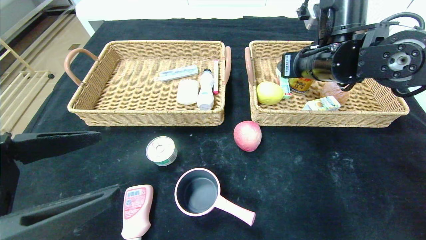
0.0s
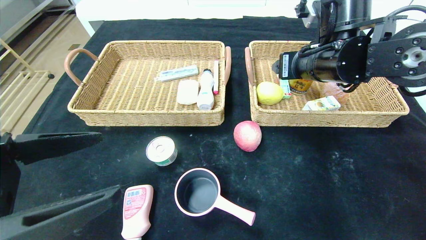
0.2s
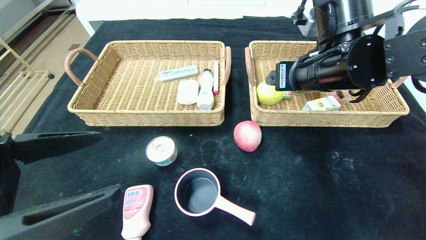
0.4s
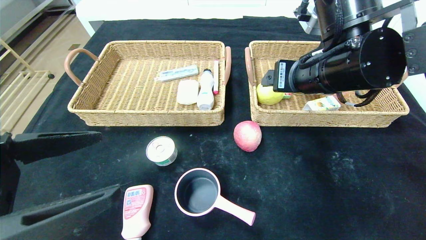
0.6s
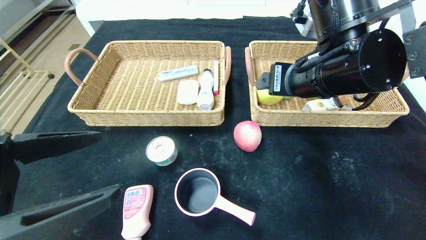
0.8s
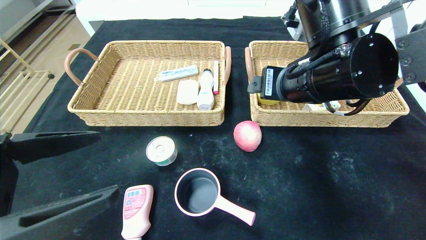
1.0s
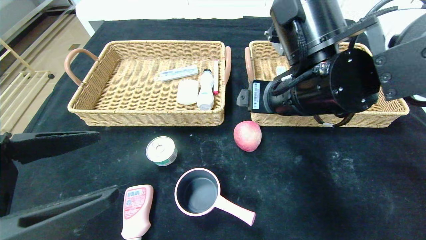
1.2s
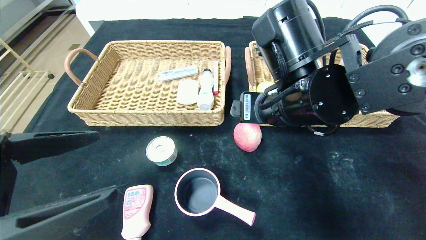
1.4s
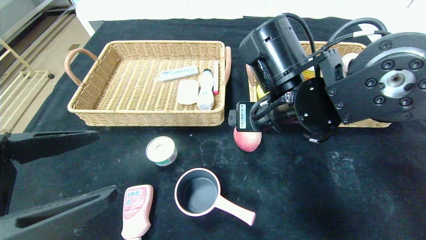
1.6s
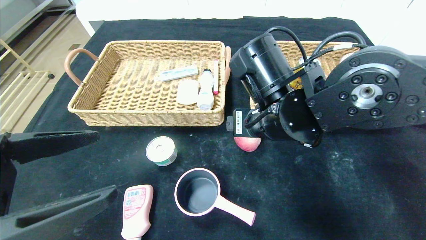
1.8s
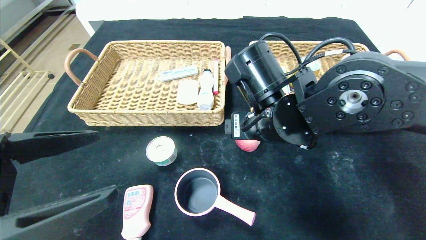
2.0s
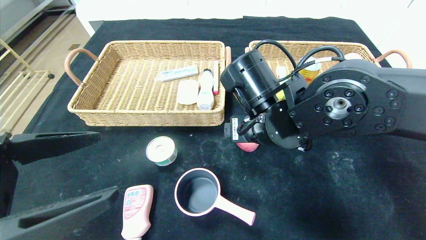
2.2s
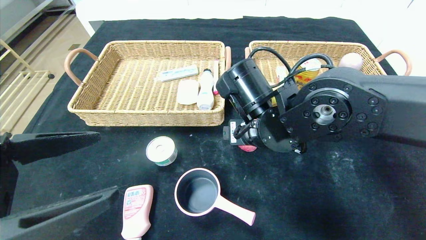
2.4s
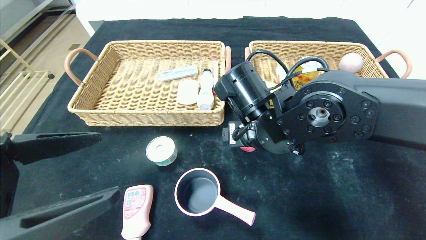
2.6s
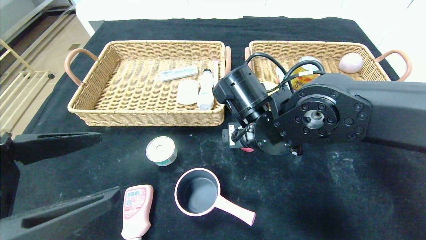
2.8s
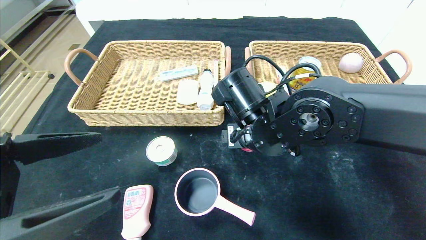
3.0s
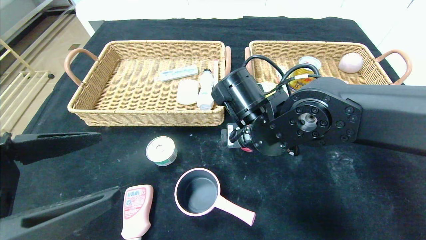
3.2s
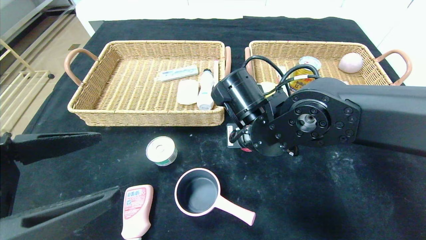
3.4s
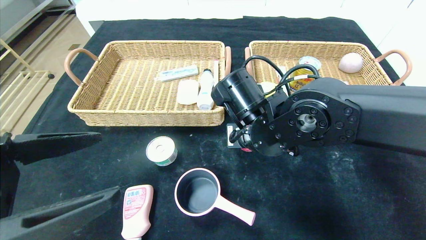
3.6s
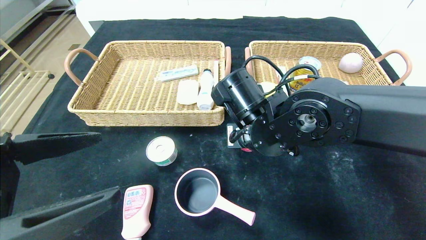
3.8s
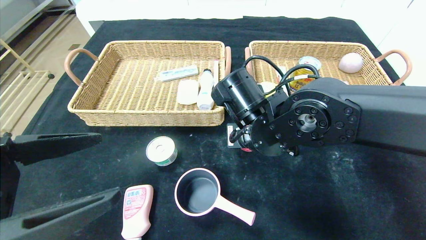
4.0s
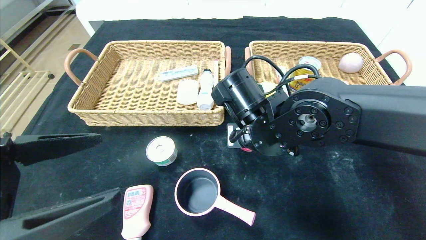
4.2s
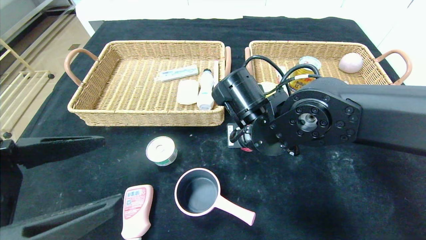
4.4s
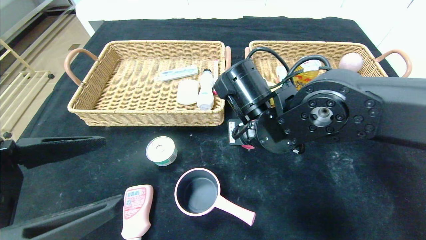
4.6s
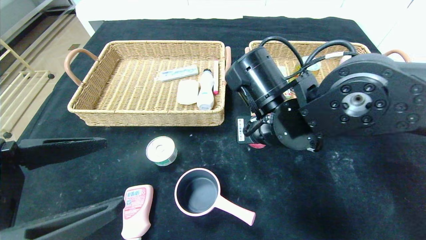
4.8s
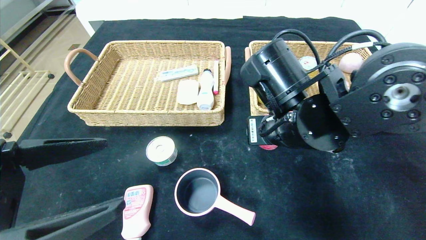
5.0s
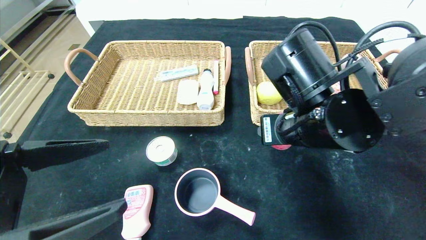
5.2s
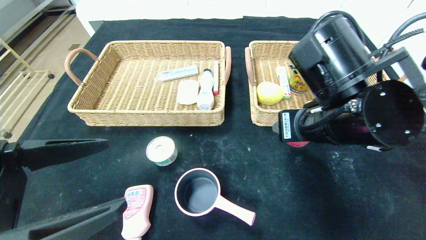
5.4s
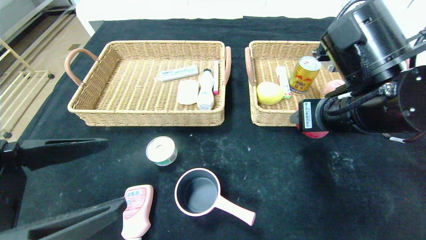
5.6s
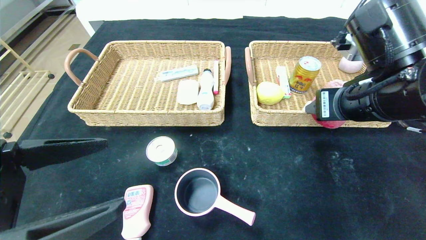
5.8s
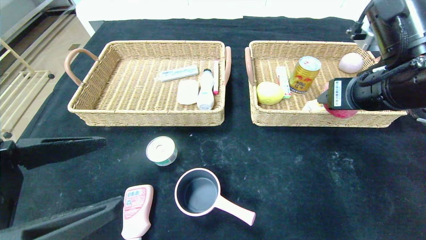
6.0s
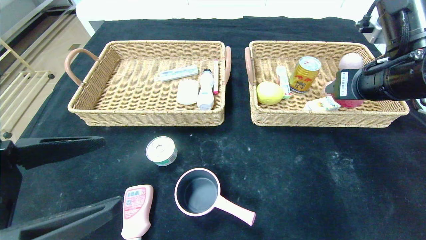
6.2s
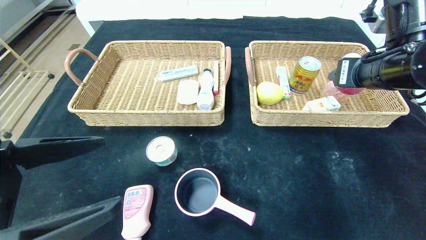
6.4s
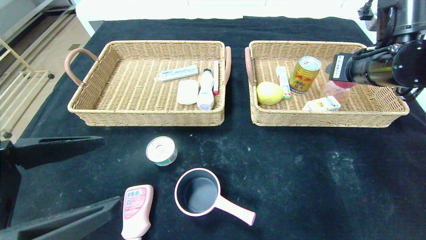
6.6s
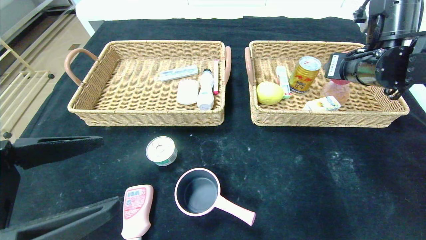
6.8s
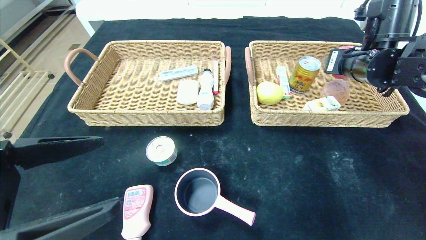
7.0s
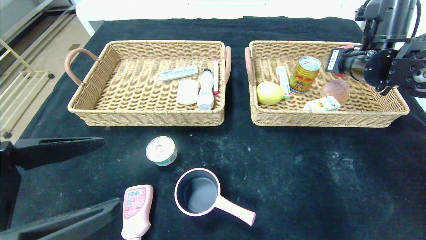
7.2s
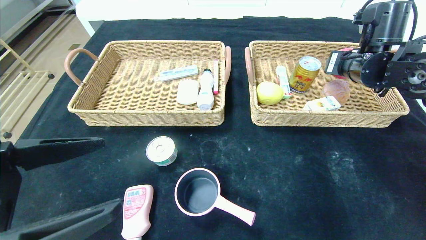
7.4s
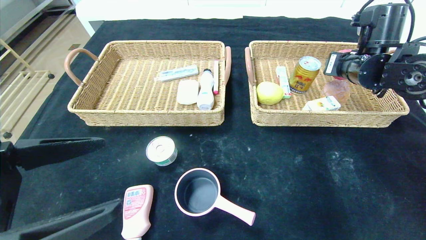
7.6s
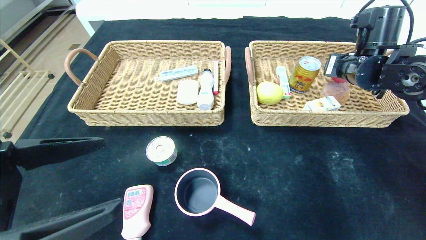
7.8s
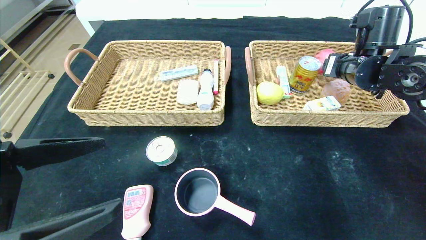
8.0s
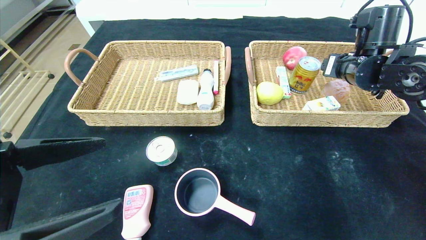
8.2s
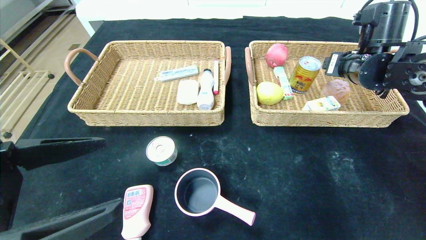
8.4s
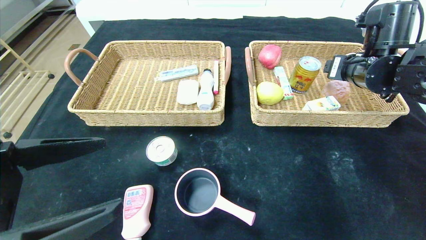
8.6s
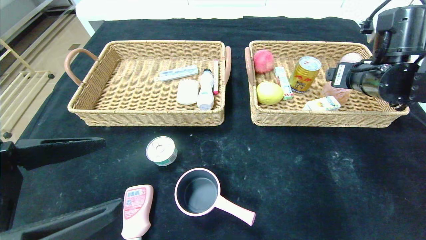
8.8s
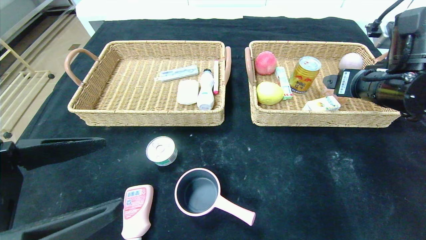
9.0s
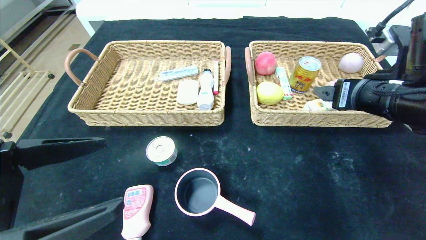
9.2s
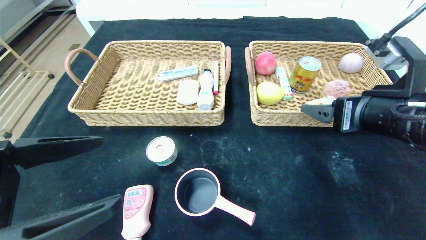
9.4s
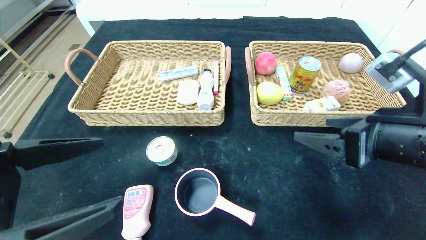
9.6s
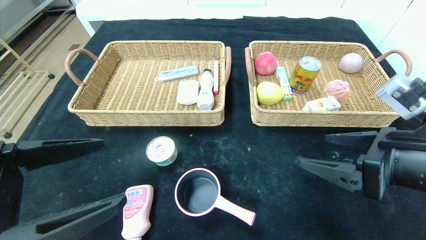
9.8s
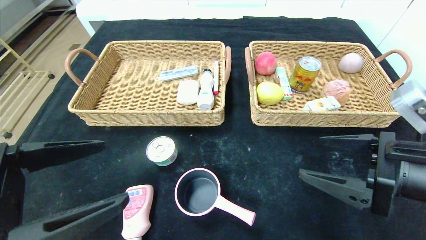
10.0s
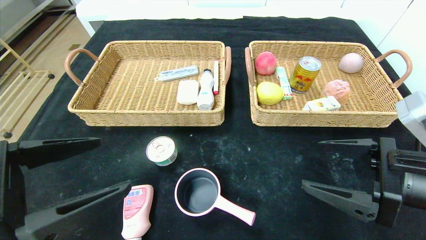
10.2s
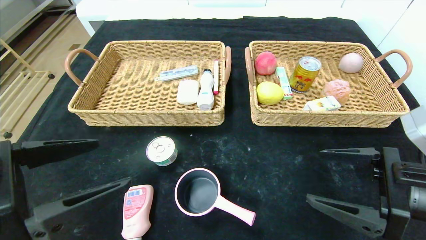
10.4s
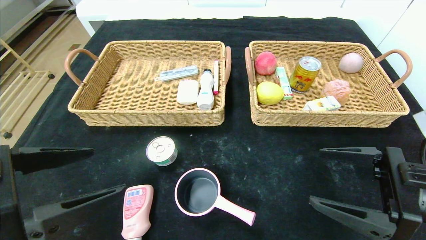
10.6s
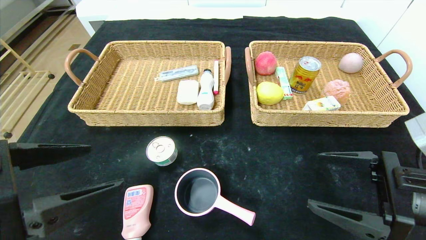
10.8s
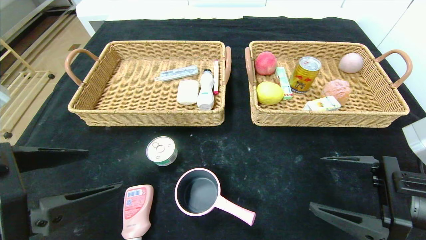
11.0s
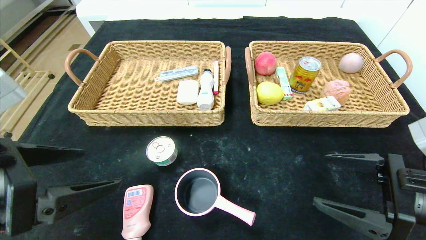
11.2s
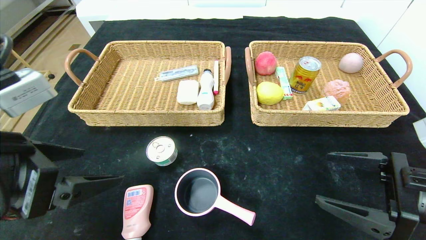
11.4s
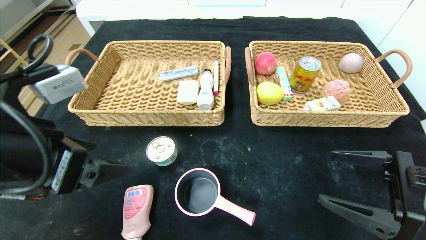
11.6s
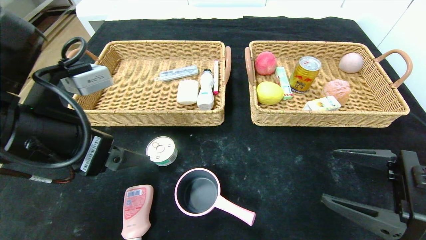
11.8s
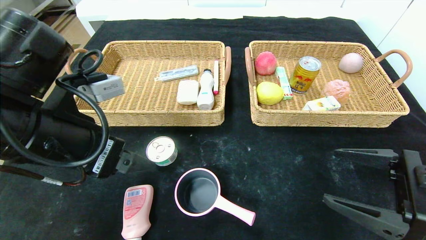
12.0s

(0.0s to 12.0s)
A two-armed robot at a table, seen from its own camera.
Step, 0.0s - 8.0s: Grasp the peach and put it in the right basket.
0.0s - 1.6s: The right gripper travels to the left, backward and downward by some 15 cm.
1.6s - 3.0s: The right gripper changes place by about 5 cm.
3.0s - 4.4s: The right gripper closes up.
4.4s - 6.0s: The right gripper moves to the right and upward, some 20 cm.
6.0s - 7.6s: The right gripper is displaced forward by approximately 10 cm.
7.6s - 9.0s: The right gripper moves backward, some 10 cm, and opens its fingers.
9.0s - 10.4s: The right gripper travels backward and downward by roughly 15 cm.
10.4s - 12.0s: The left gripper goes approximately 10 cm forward.

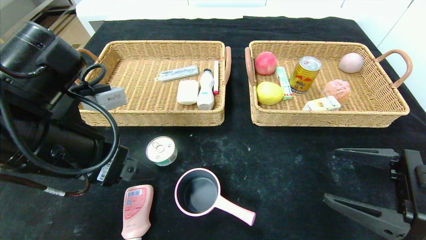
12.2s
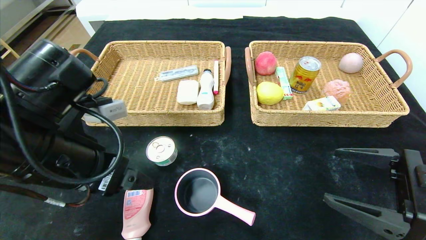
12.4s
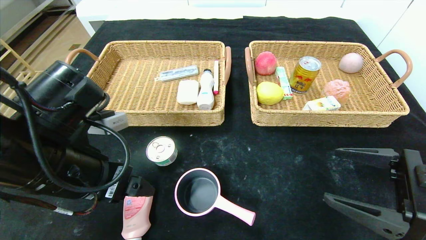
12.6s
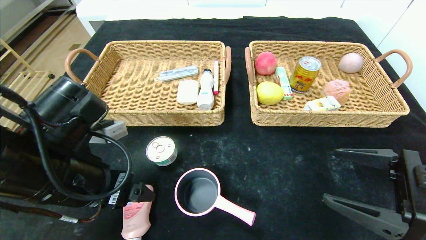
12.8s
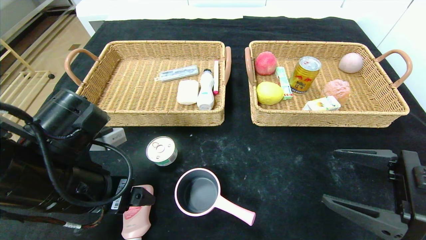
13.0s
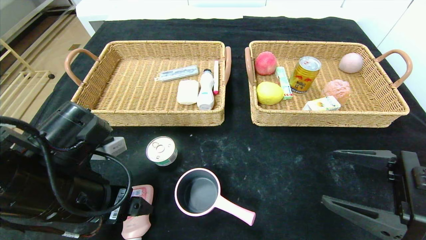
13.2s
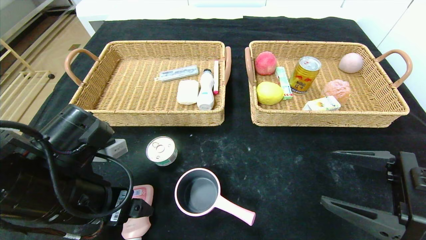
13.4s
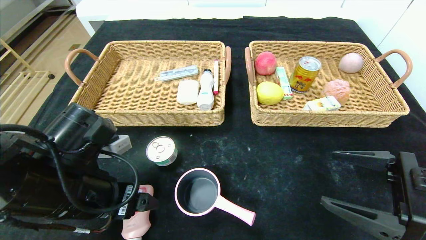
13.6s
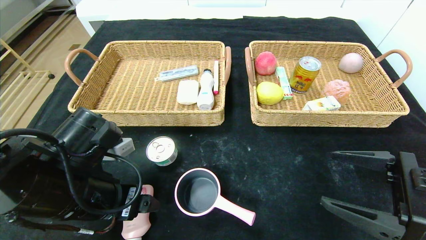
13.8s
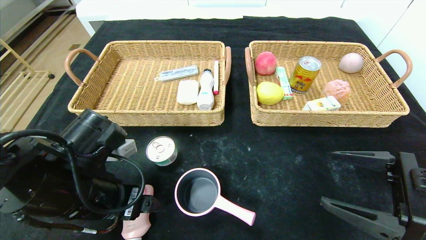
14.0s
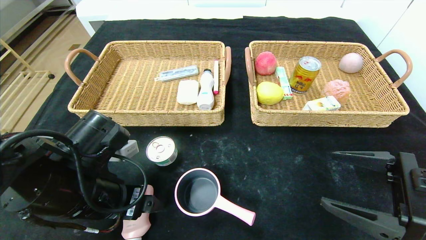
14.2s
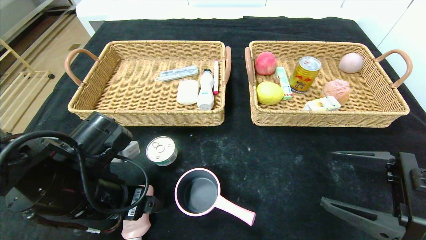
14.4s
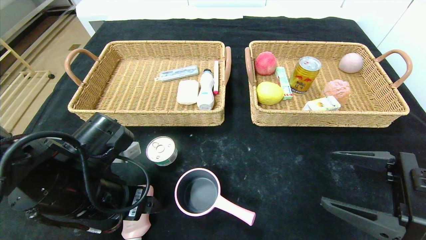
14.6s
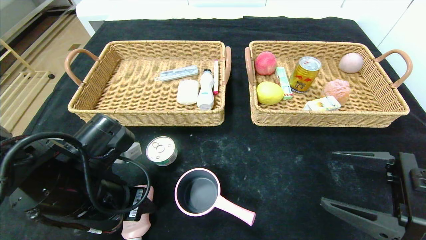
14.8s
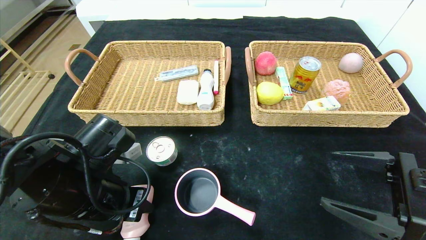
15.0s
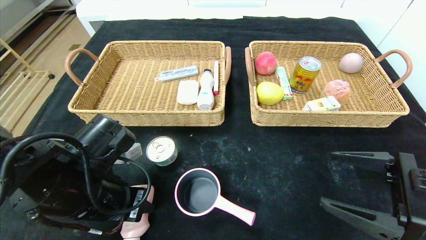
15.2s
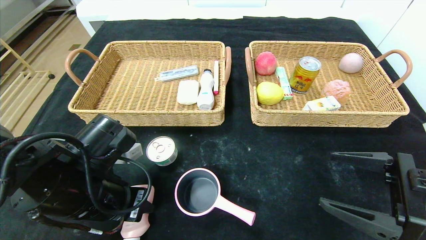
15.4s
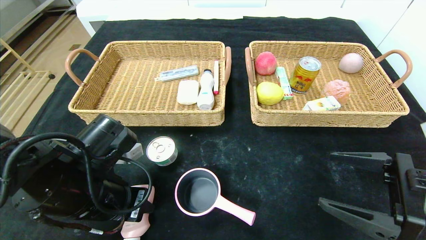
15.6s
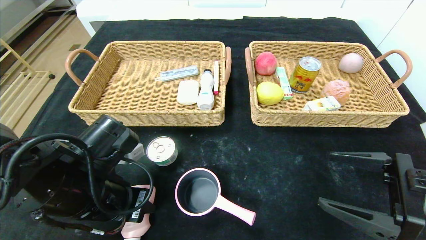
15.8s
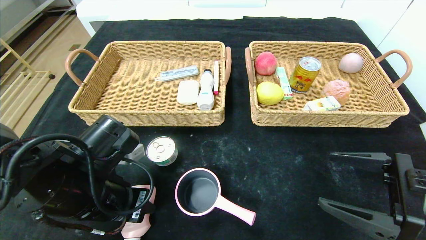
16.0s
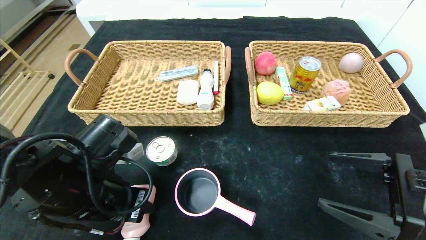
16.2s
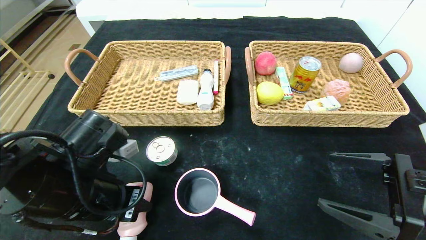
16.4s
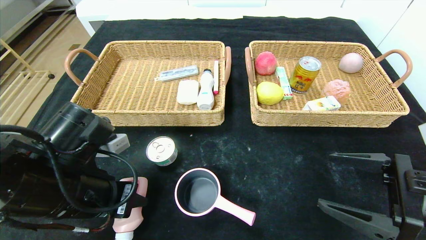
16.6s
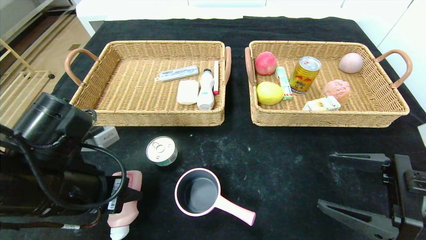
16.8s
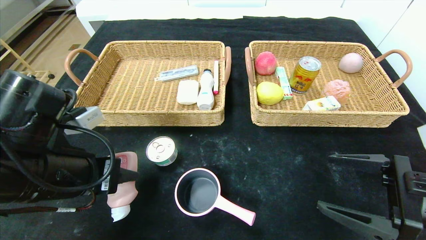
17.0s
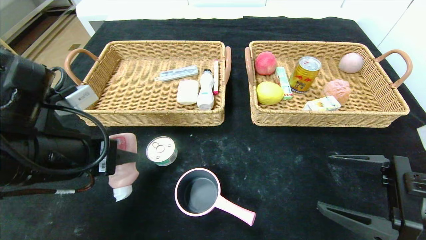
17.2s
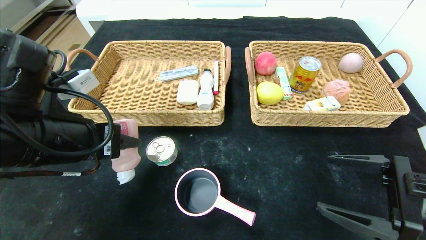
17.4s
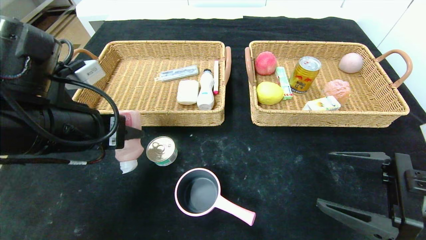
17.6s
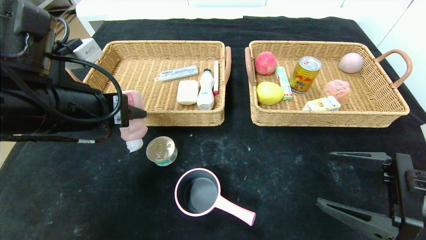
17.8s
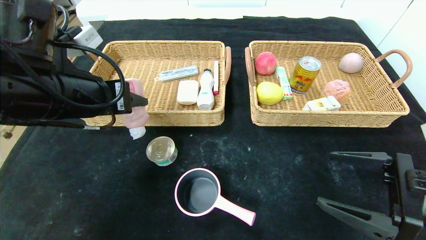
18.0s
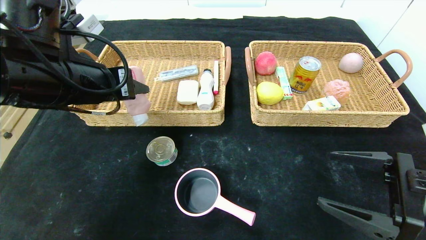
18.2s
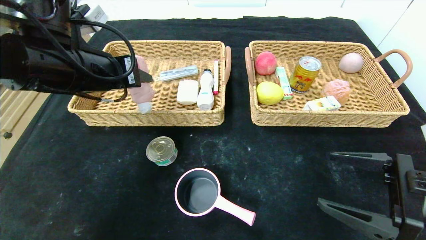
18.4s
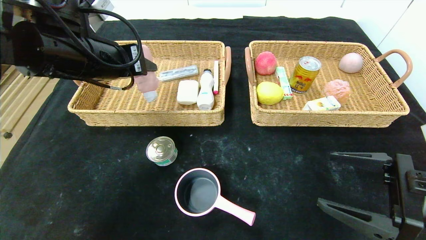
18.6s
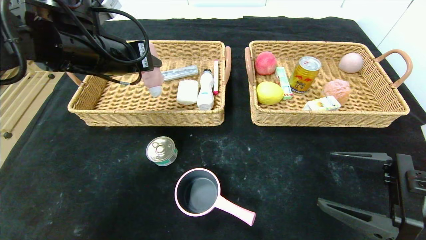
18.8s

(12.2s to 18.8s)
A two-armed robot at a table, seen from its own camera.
12.2s - 13.8s: The left gripper moves downward, approximately 10 cm.
13.8s - 15.4s: The left gripper closes its fingers.
15.4s - 17.2s: The left gripper heads upward, covering roughly 10 cm.
17.2s - 18.8s: The left gripper travels forward and upward by roughly 15 cm.
